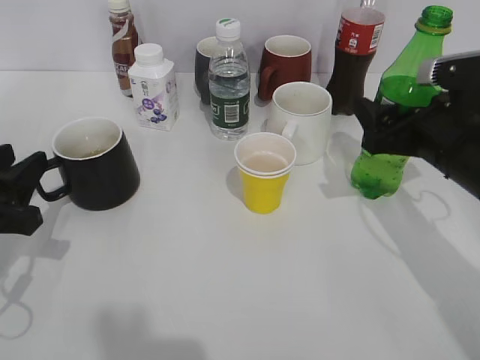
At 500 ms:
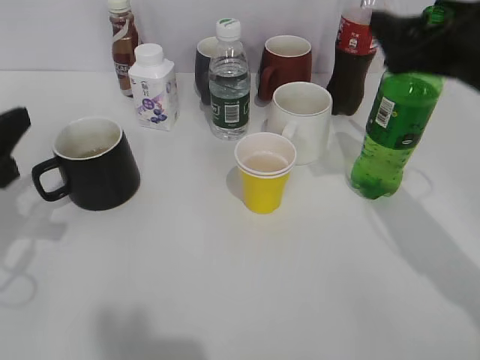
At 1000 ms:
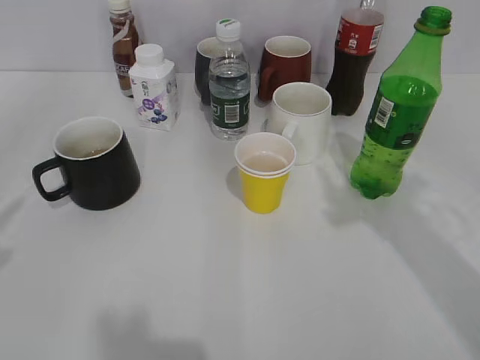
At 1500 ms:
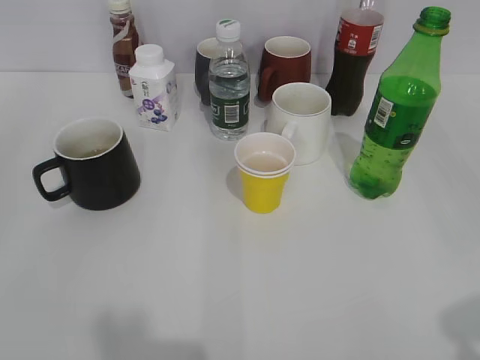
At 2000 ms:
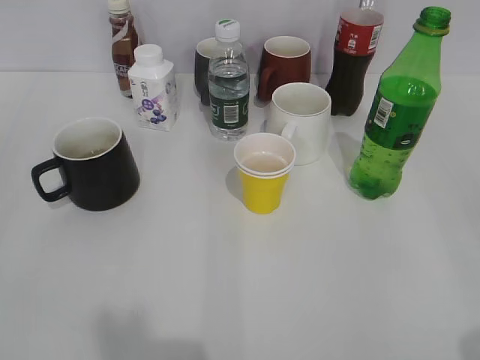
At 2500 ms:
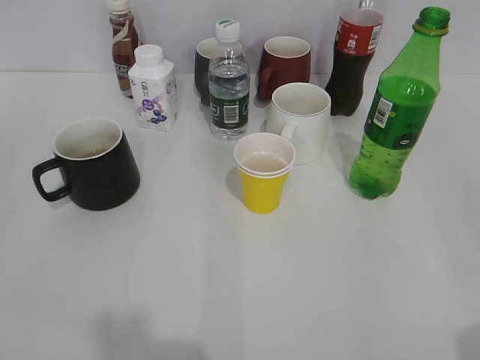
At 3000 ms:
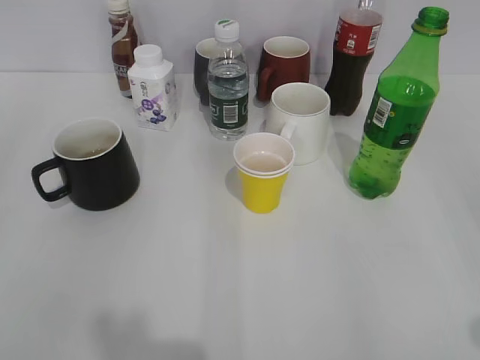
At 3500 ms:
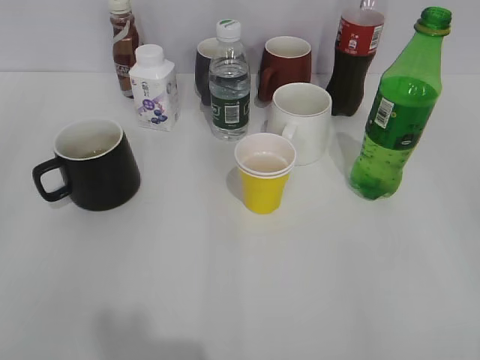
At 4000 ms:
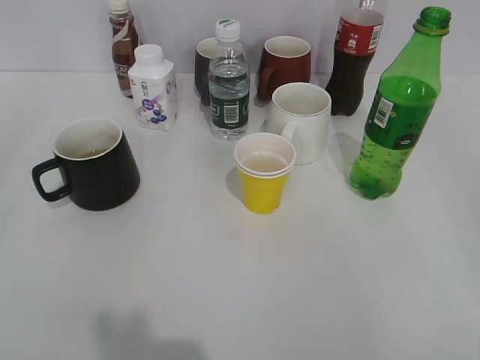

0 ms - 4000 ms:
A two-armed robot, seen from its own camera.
0 ms - 2000 ms: The left gripper heads backward and upward, covering about 25 cm. Meanwhile the right gripper moves backward, roughly 25 cm.
